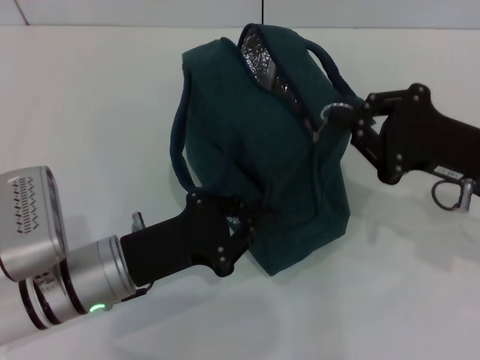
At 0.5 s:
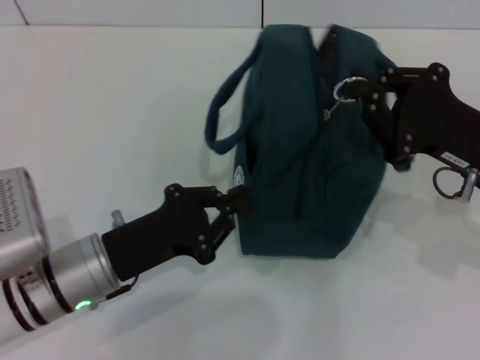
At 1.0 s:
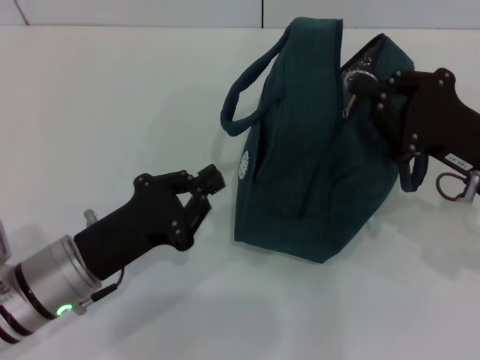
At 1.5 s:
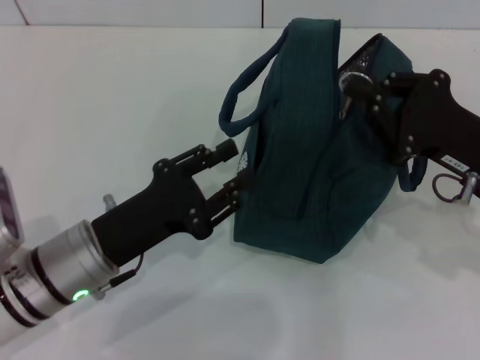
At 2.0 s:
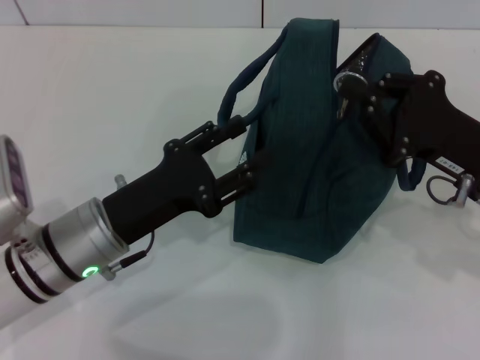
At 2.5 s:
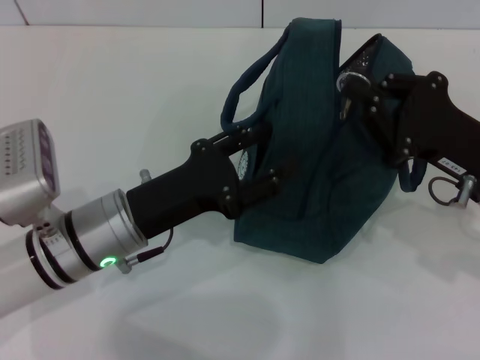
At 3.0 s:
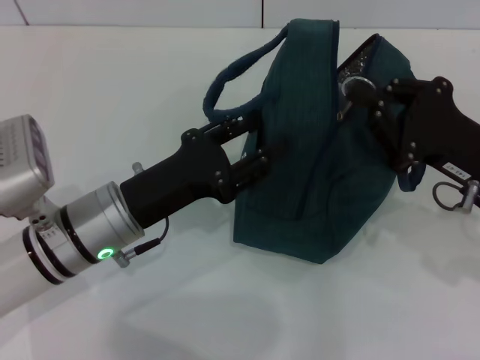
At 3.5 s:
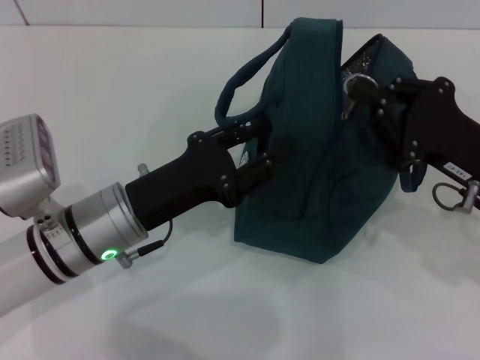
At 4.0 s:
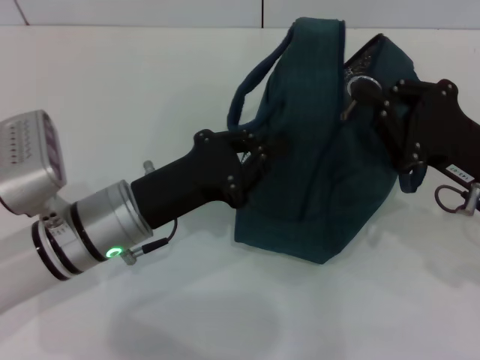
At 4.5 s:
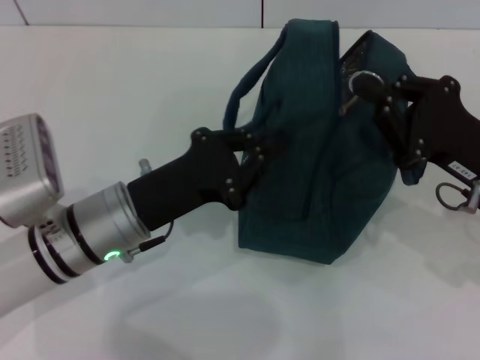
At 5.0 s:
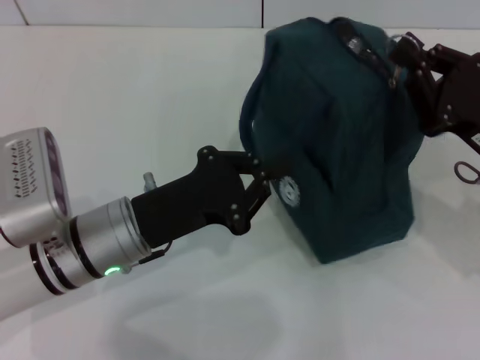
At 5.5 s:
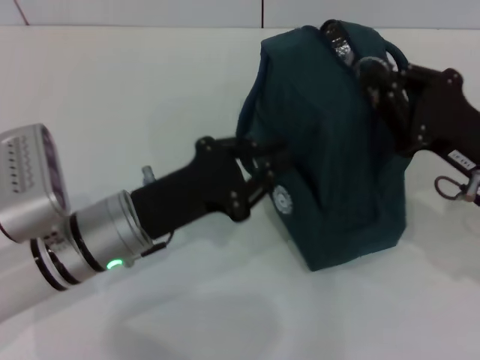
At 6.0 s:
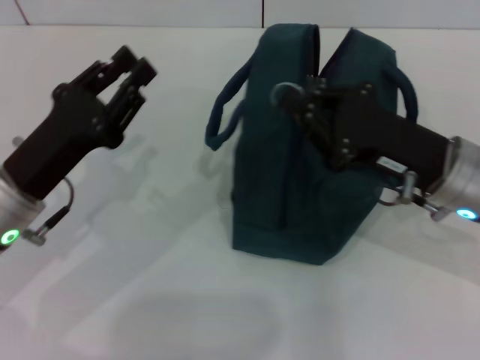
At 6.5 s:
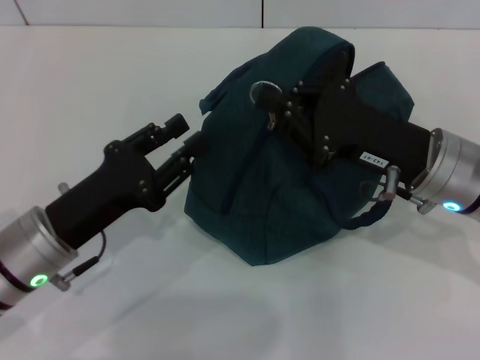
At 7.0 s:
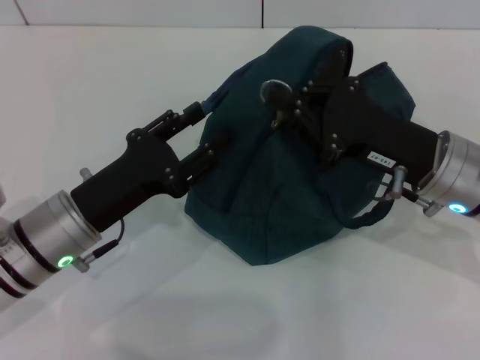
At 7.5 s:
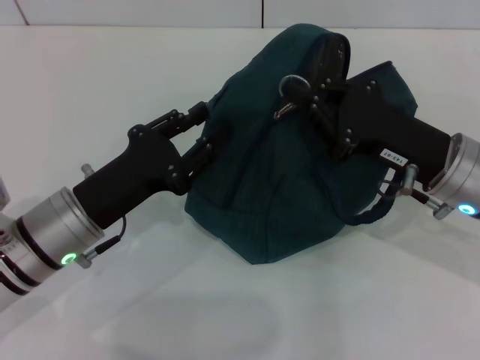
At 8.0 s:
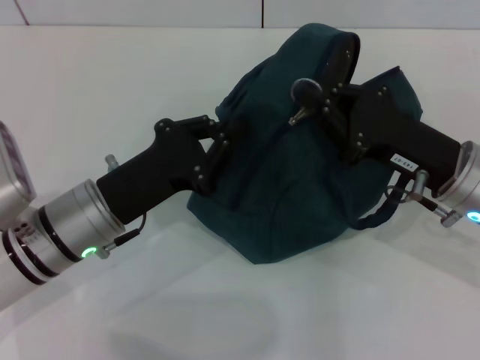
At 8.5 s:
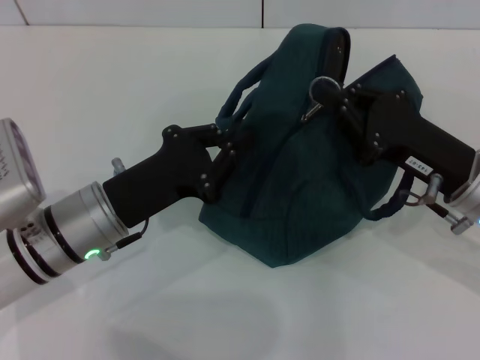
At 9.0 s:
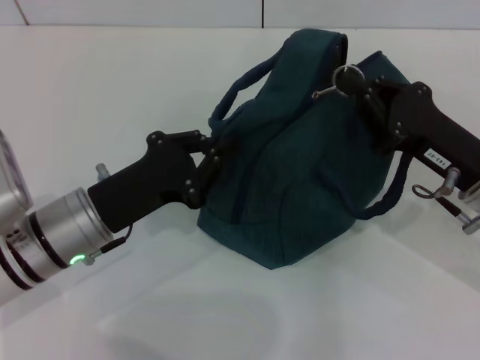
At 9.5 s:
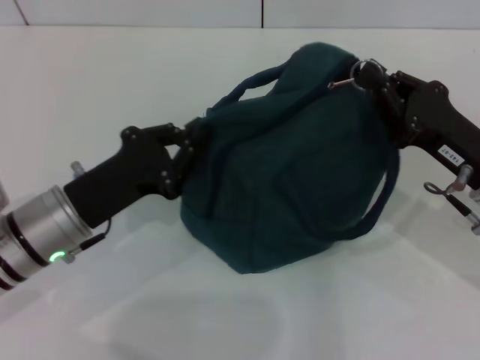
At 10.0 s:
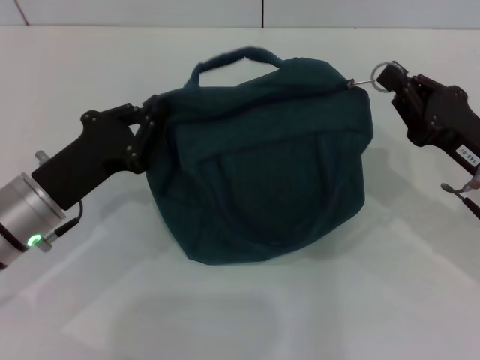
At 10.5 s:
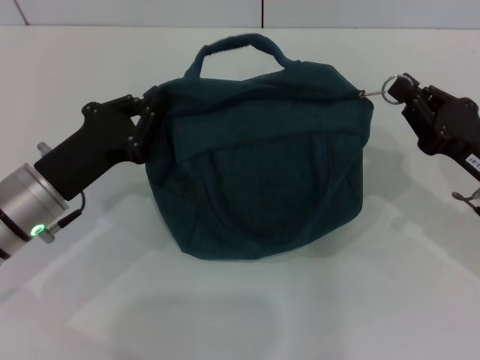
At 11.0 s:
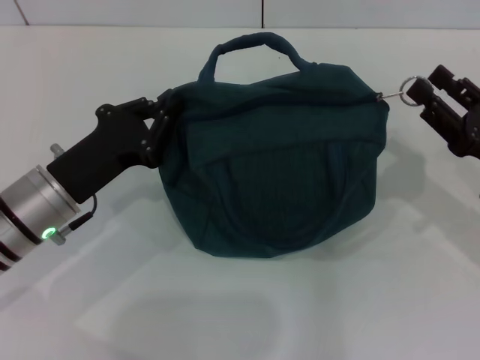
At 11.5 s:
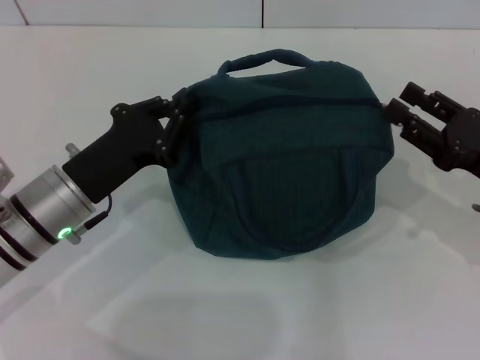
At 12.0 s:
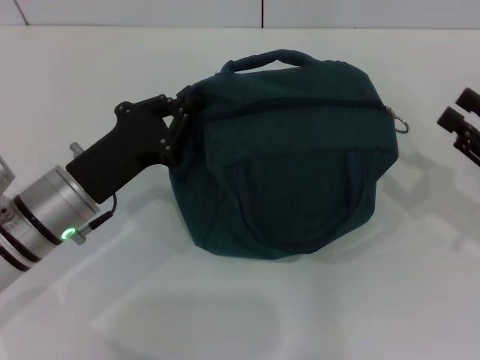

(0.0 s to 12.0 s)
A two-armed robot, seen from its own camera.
0.0 s - 2.0 s: The left gripper opens up.
2.0 s - 4.0 s: The left gripper closes.
4.0 s - 6.0 s: The right gripper shifts by roughly 5 cm. The left gripper is displaced to the left by approximately 10 cm.
6.0 s - 8.0 s: The left gripper moves to the right, approximately 5 cm, and closes up.
8.0 s - 10.0 s: The left gripper travels to the left by some 5 cm; the right gripper travels to the right by about 5 cm.
10.0 s - 12.0 s: The right gripper heads to the right, covering approximately 10 cm, and opens its fingers.

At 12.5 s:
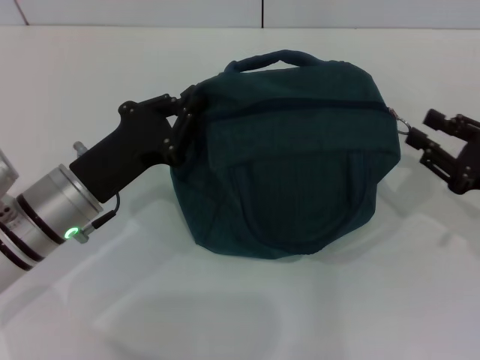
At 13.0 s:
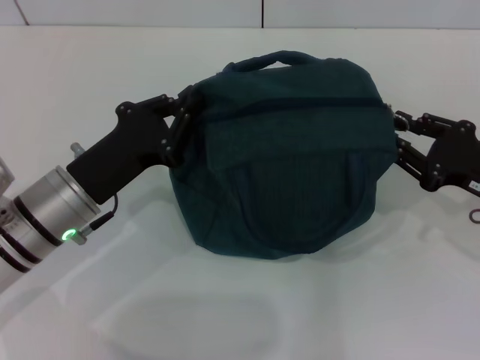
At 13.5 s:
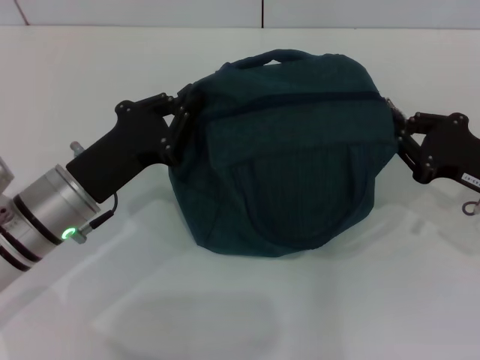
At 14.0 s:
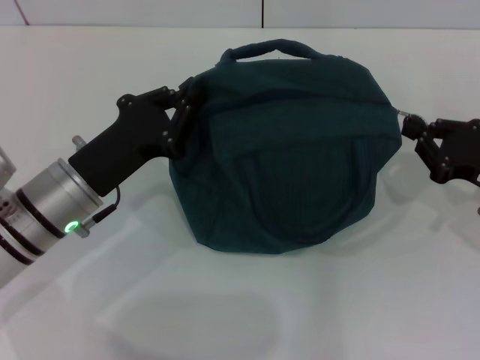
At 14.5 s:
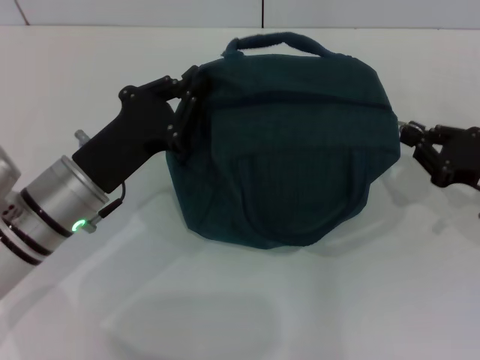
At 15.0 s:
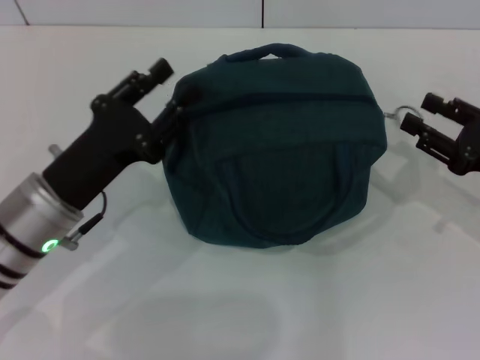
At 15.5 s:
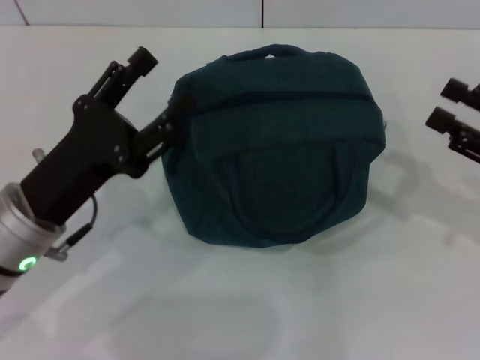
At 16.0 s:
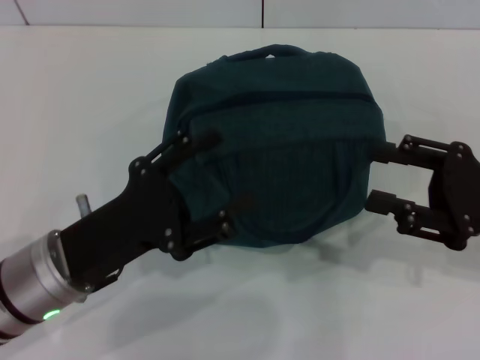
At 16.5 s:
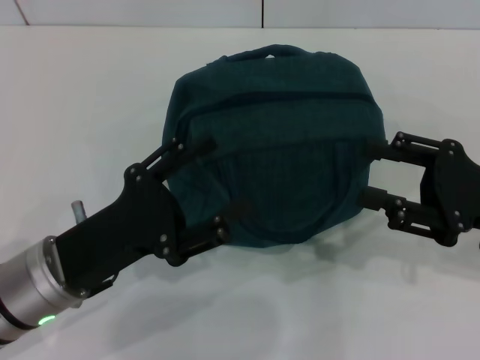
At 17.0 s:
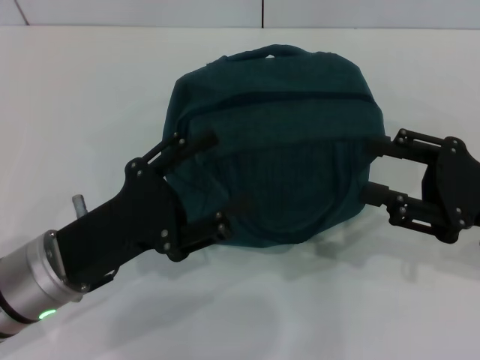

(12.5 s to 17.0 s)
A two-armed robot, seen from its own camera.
Step, 12.5 s - 14.5 s: Hold the lunch bag with your left hand.
12.5 s - 14.5 s: The right gripper closes its fingers.
14.5 s - 17.0 s: The left gripper moves backward, some 5 cm, and opens. The right gripper is displaced upward by roughly 5 cm, and opens.
